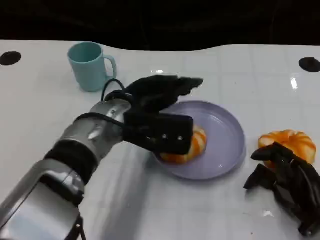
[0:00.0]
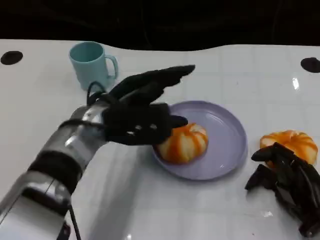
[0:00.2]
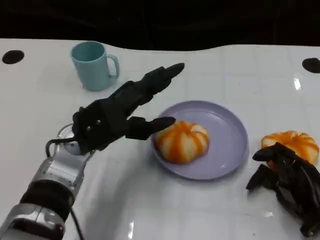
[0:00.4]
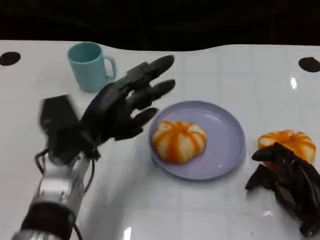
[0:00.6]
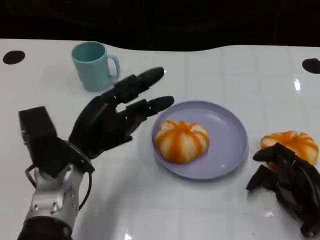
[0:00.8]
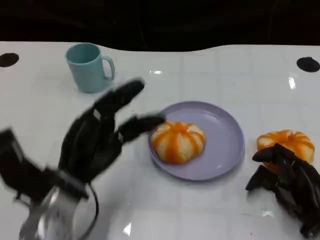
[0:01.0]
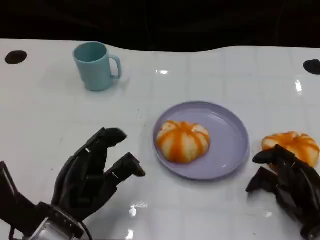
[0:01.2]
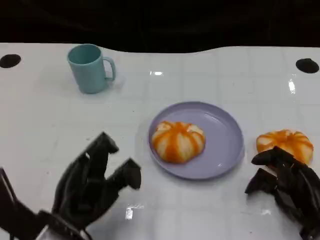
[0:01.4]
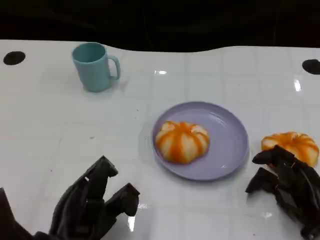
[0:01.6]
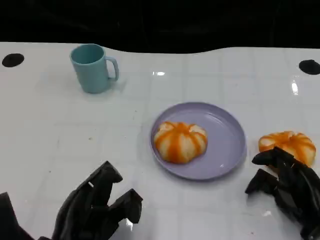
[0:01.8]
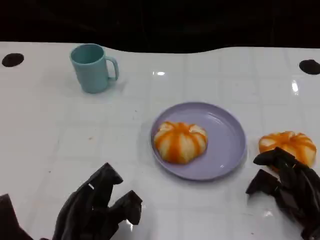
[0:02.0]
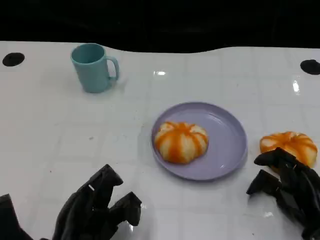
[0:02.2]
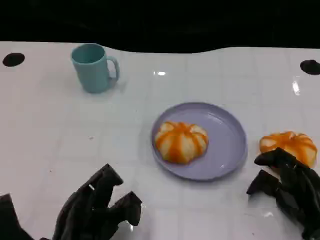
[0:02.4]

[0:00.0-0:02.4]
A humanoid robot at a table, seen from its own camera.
Task of the whole recording: Grasp the bread from the table and place it into the plate.
0:00.0 to 0:01.2: The left hand moves backward, to the left and downward, some 15 cm.
0:01.2 to 0:02.4: The hands make only small movements.

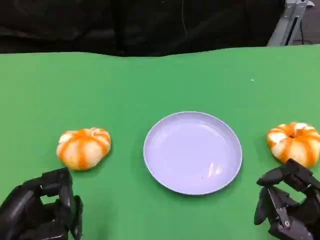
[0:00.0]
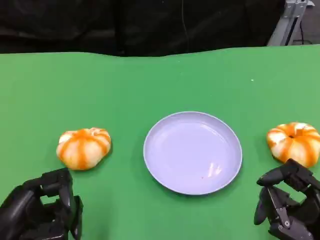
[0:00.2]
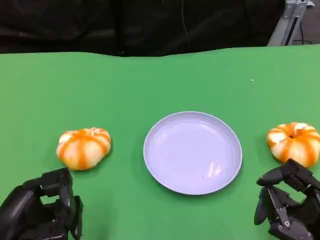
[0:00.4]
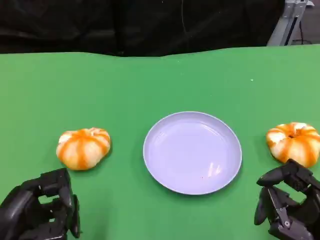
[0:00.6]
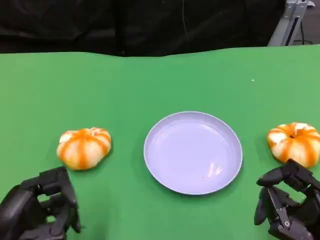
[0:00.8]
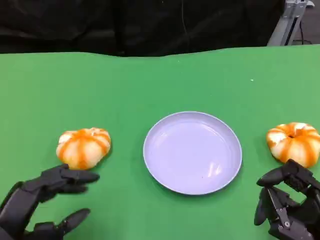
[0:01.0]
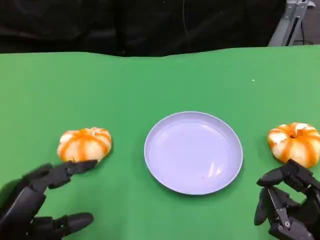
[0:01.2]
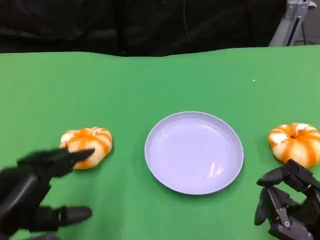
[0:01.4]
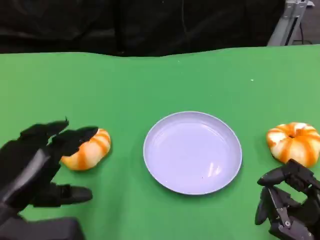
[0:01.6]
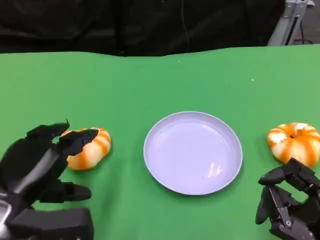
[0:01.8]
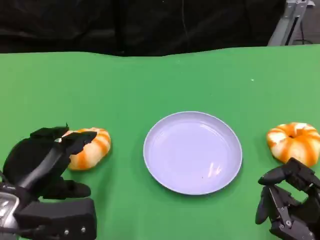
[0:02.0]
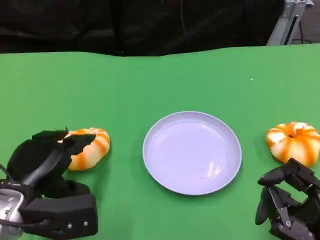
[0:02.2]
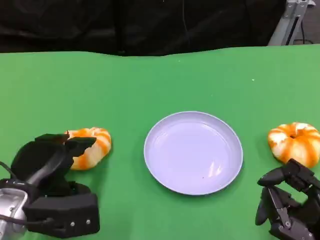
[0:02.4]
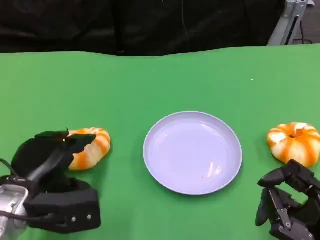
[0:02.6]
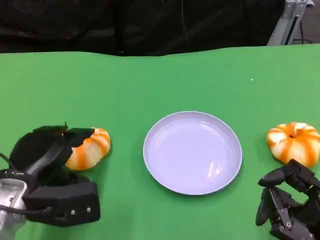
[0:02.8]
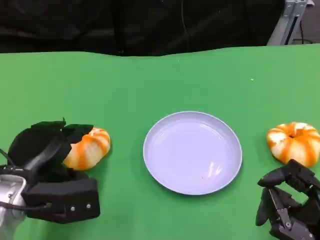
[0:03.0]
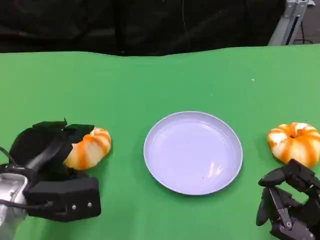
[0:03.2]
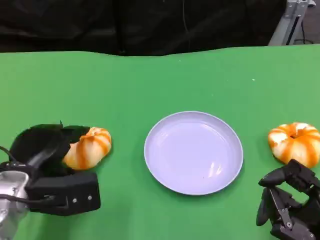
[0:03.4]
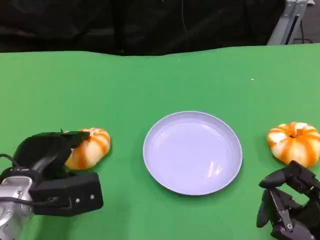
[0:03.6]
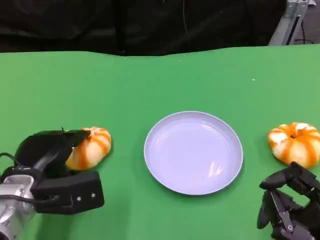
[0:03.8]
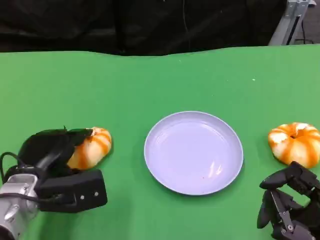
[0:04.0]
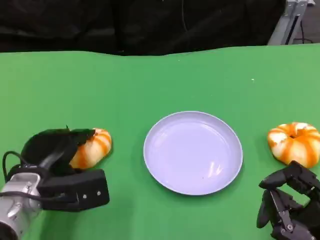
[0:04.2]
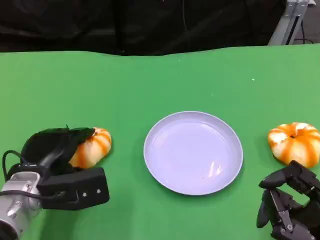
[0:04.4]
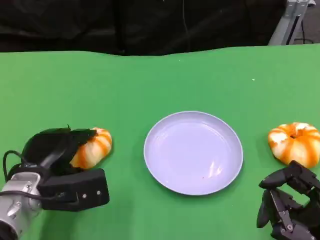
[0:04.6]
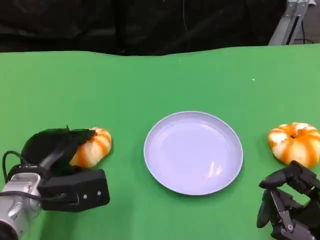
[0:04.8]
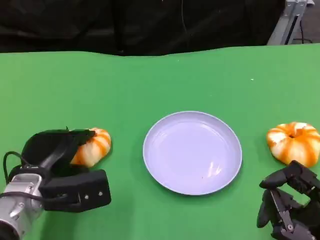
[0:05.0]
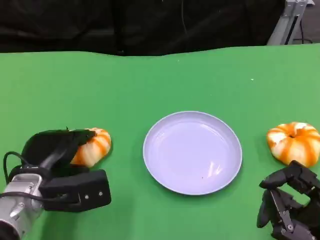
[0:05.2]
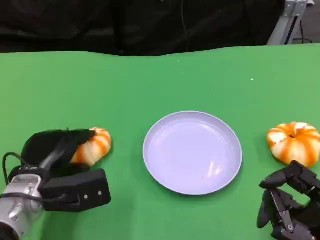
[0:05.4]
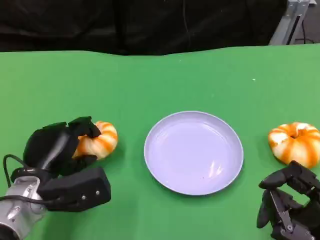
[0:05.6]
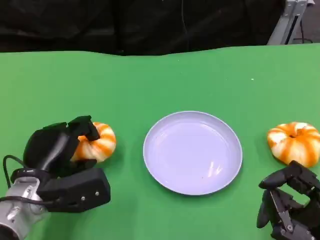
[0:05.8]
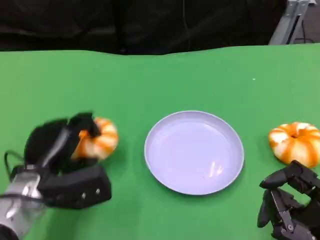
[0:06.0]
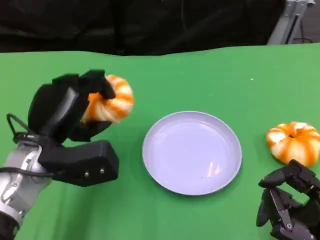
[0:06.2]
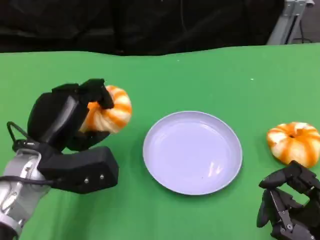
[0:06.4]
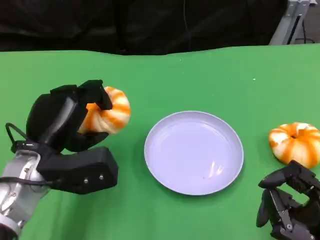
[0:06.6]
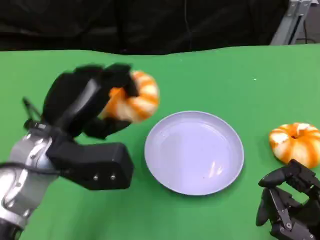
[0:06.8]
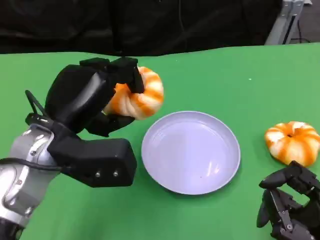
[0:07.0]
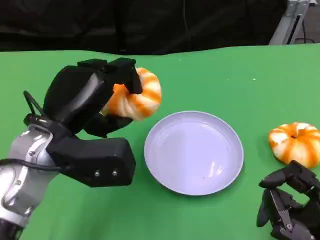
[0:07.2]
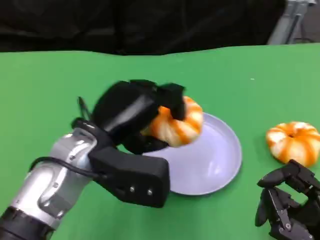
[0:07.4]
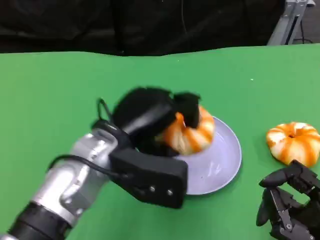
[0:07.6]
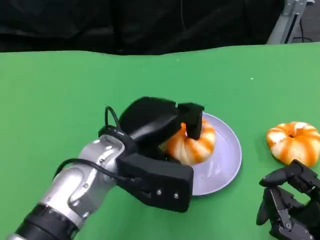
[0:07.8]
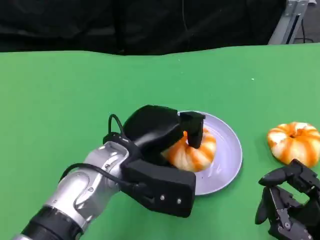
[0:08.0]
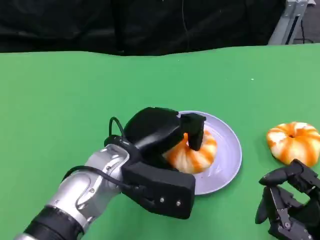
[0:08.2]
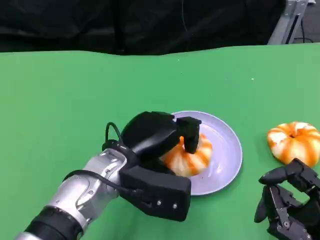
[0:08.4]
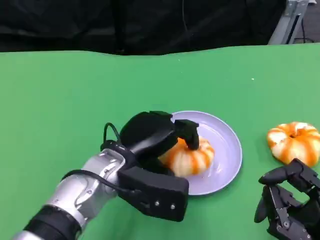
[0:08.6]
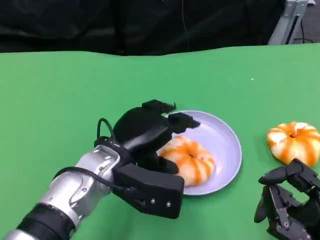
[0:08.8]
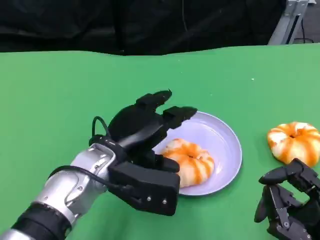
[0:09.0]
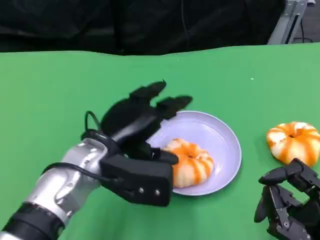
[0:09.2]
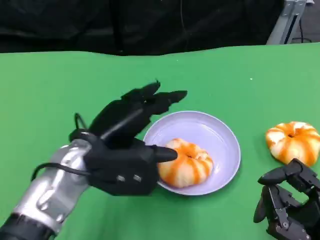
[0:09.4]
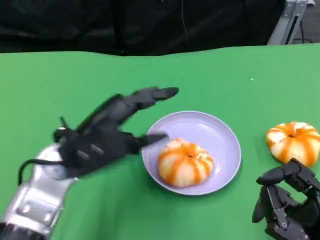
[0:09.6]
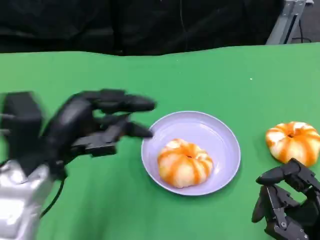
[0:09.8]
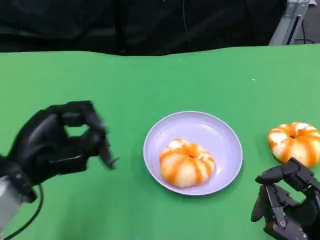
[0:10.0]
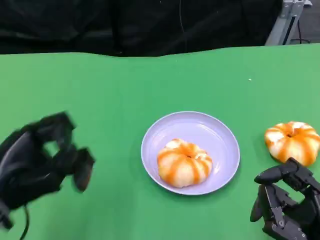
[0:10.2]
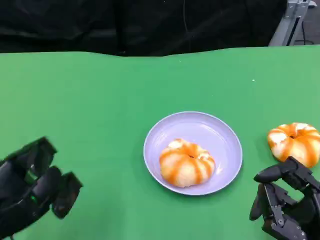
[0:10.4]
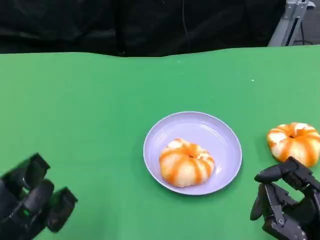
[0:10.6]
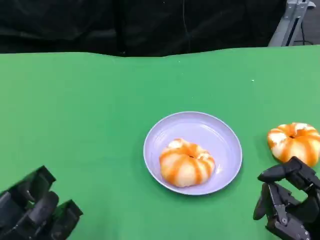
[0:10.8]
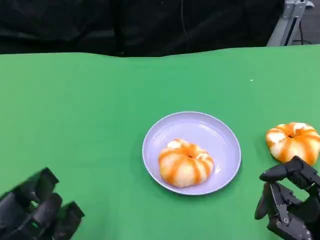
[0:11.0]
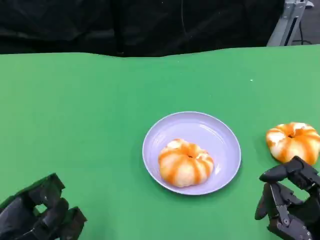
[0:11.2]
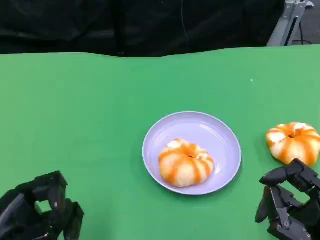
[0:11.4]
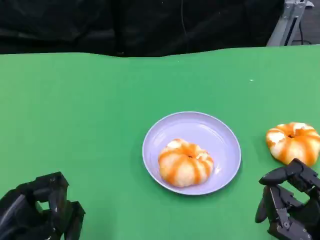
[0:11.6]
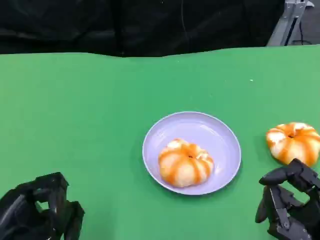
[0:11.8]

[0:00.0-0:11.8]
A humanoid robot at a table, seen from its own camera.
Task of the whole recording: Grasp the bread from the table and place it into the plate.
0:01.4 to 0:03.0: The left hand shifts approximately 10 cm forward.
0:03.0 to 0:04.4: There are only small adjustments of the hands.
0:06.0 to 0:07.4: The left hand shifts approximately 10 cm upward and to the right.
0:07.4 to 0:08.8: The left hand travels downward by approximately 5 cm.
0:08.8 to 0:10.4: The left hand is displaced to the left and backward by about 20 cm.

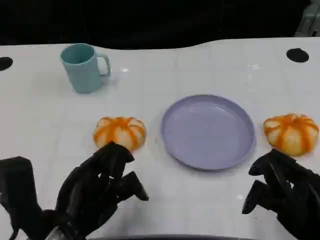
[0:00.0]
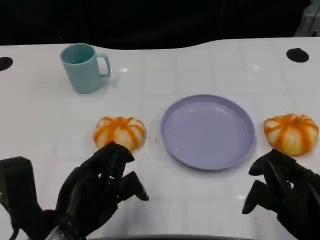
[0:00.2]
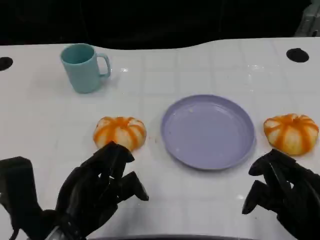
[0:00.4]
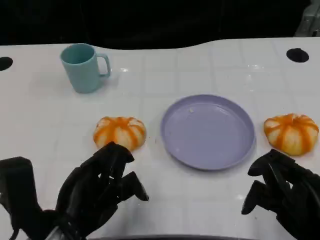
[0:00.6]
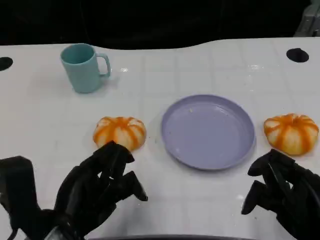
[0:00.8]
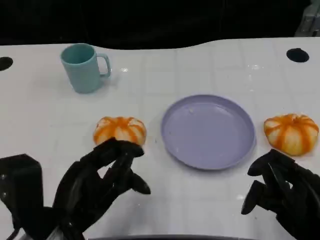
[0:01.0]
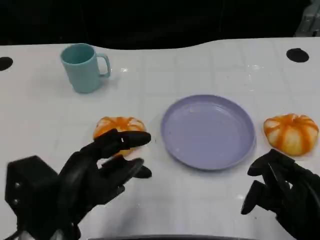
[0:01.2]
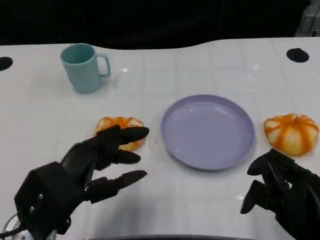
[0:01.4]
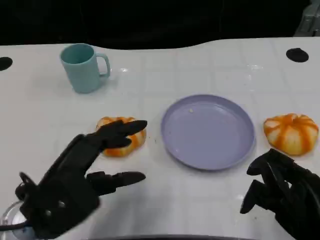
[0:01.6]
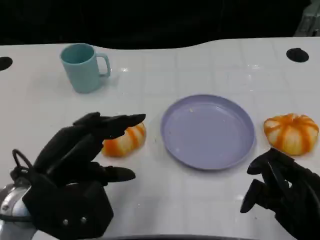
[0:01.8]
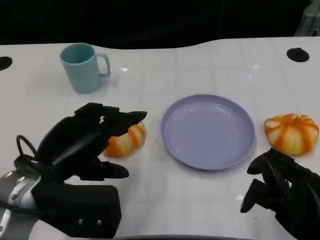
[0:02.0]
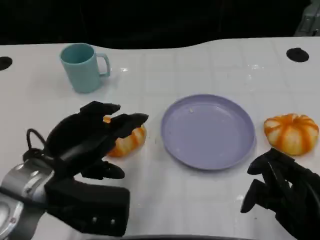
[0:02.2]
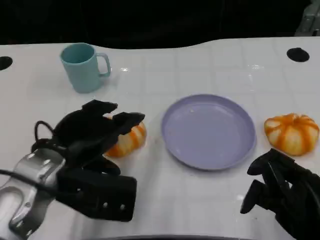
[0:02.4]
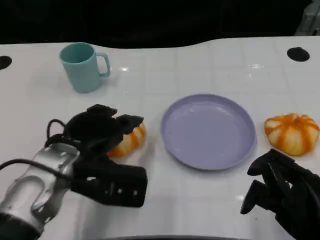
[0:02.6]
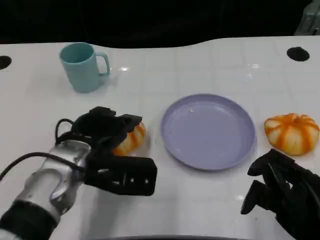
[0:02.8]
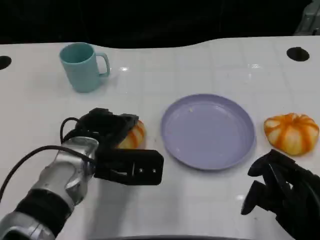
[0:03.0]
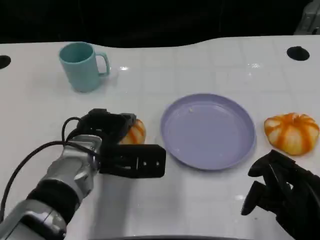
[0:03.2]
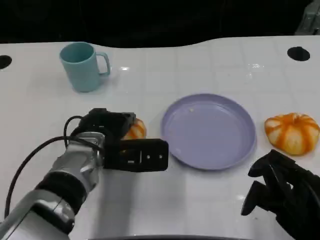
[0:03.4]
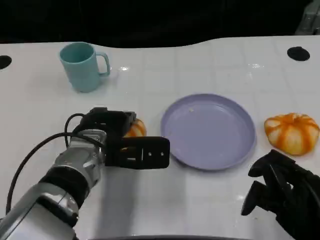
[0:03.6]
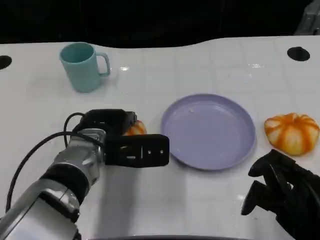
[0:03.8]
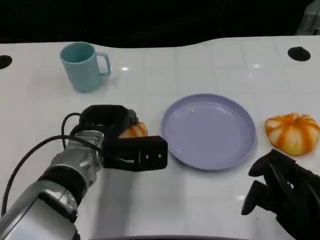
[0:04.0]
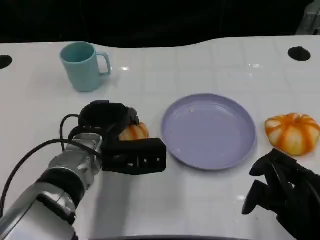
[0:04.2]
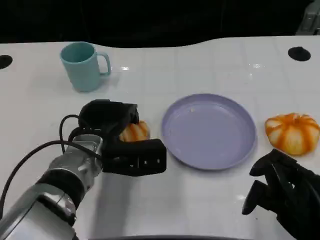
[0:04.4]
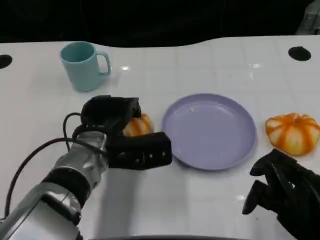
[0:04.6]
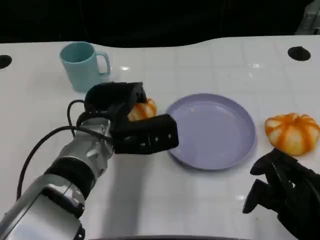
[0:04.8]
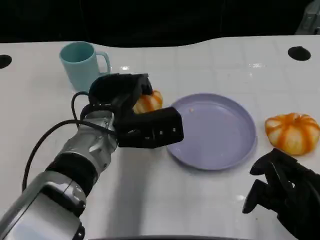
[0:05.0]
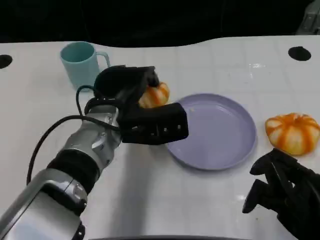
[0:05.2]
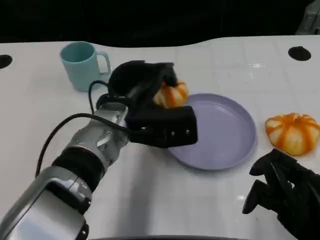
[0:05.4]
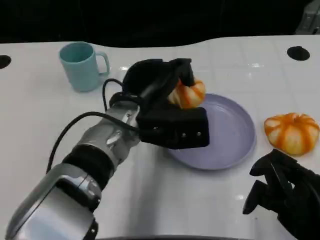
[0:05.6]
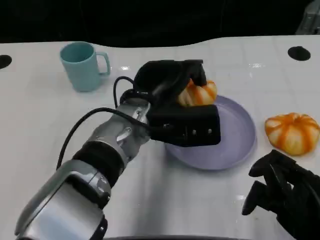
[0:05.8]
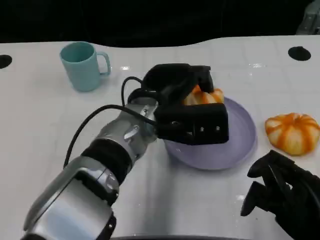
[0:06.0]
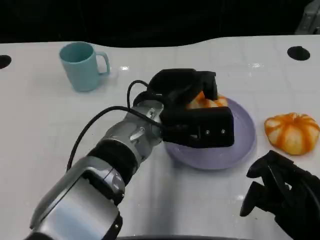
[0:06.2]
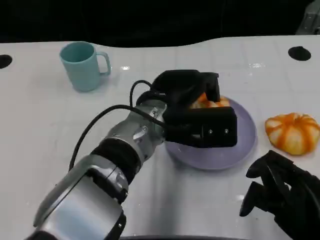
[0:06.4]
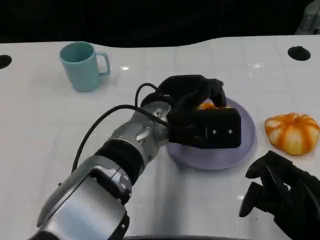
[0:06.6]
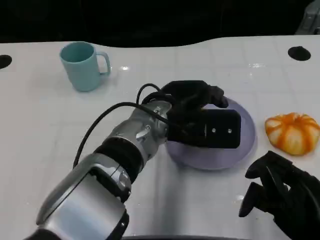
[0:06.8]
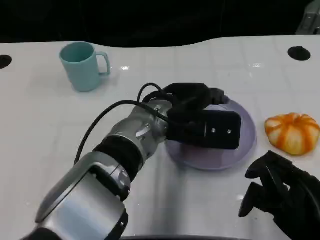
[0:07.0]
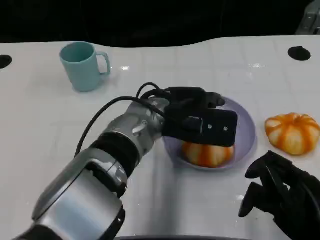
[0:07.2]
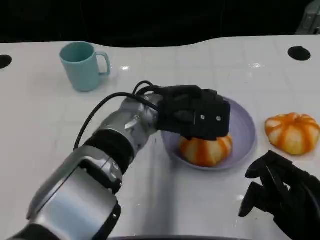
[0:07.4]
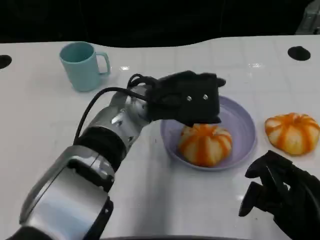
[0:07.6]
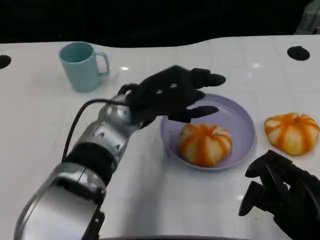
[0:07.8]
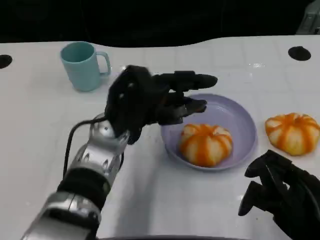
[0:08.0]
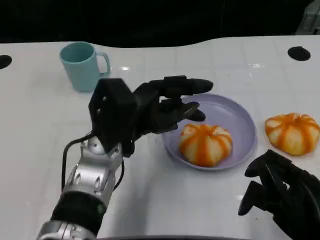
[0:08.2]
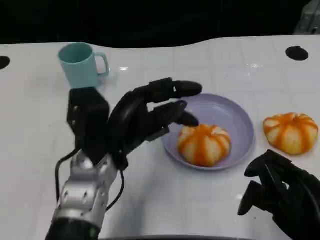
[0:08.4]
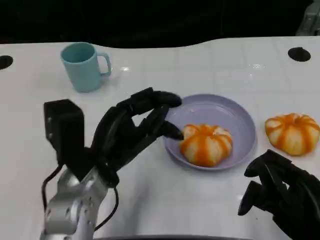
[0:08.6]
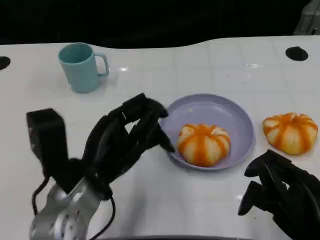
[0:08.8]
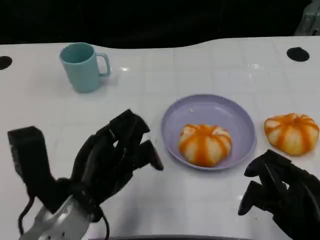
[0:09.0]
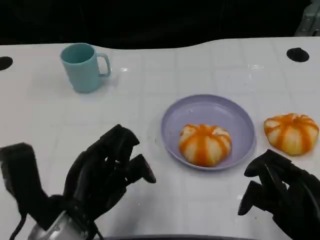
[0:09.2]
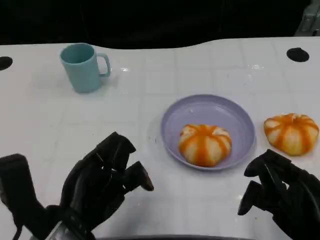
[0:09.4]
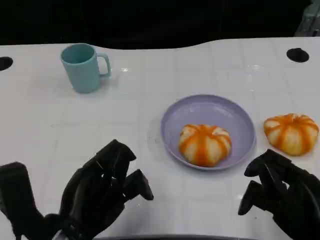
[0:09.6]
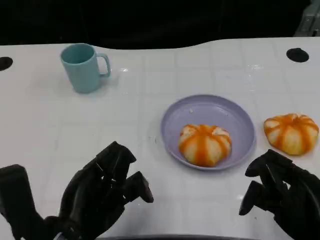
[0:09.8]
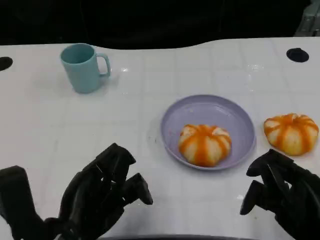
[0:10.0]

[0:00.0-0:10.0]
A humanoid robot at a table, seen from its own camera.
Task of the whole recording: Grasp the bread from the table and place it into the plate.
0:01.4 to 0:02.8: The left hand is displaced forward by some 10 cm.
0:02.8 to 0:04.2: The hands move only a little.
0:04.2 to 0:05.8: The left hand moves to the right and upward, roughly 10 cm.
0:07.2 to 0:08.6: The left hand shifts about 15 cm to the left and backward.
0:08.6 to 0:10.0: The left hand moves backward, approximately 10 cm.
